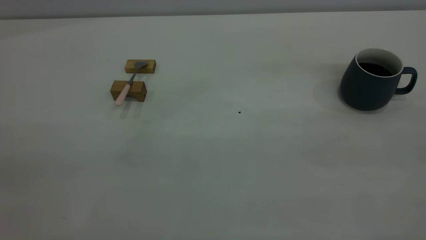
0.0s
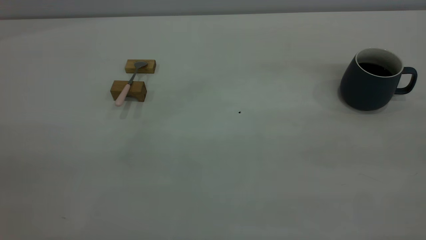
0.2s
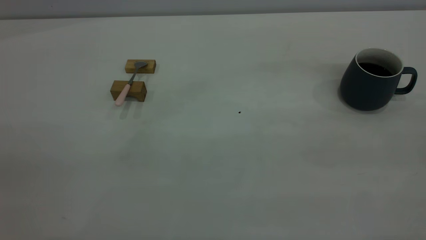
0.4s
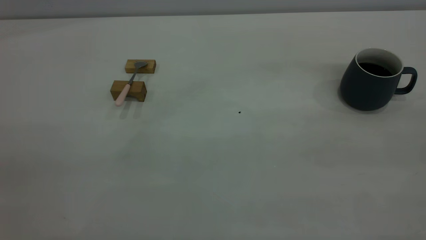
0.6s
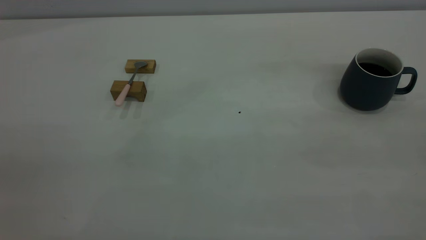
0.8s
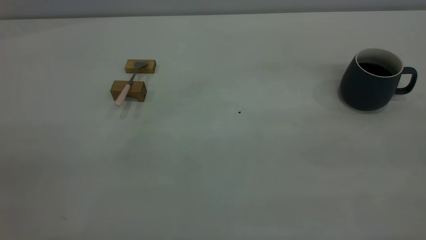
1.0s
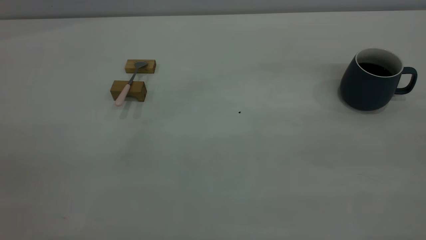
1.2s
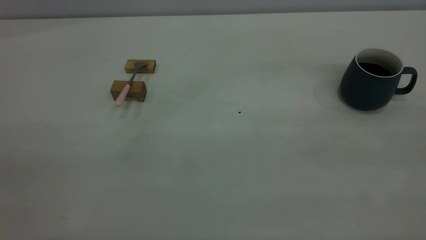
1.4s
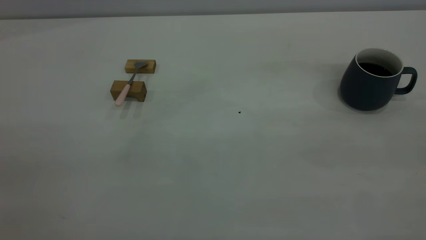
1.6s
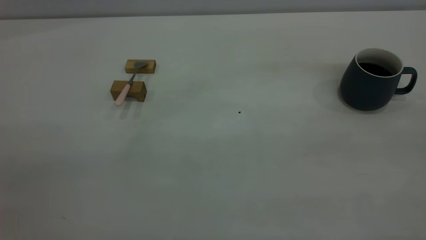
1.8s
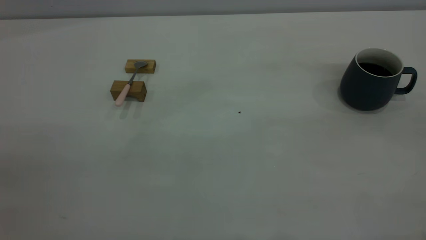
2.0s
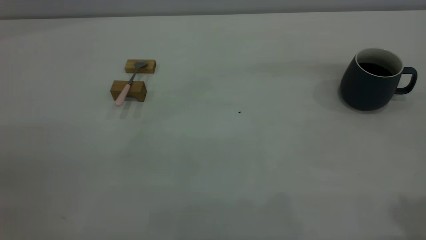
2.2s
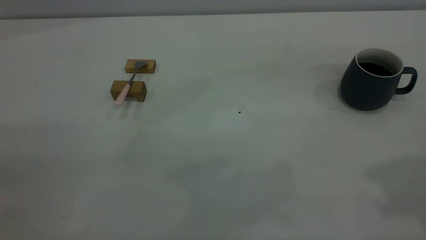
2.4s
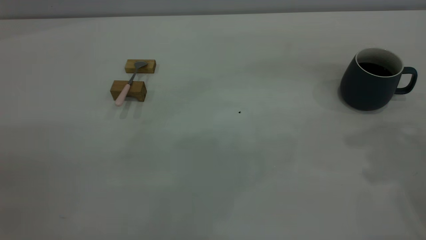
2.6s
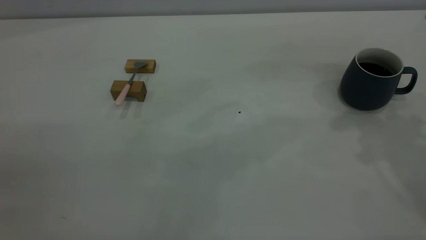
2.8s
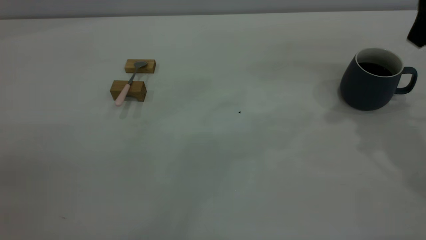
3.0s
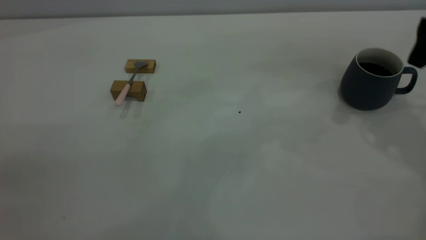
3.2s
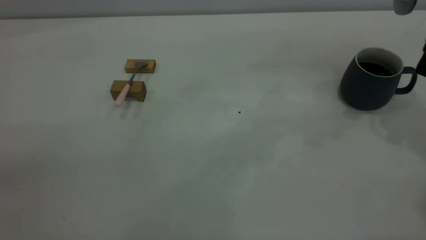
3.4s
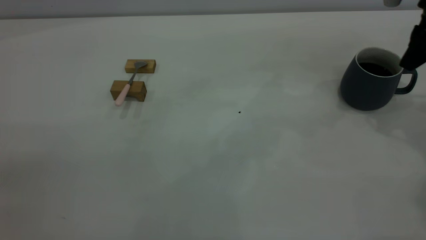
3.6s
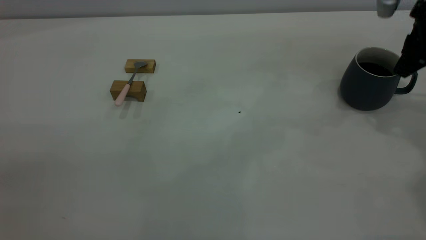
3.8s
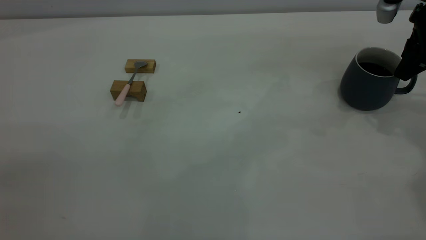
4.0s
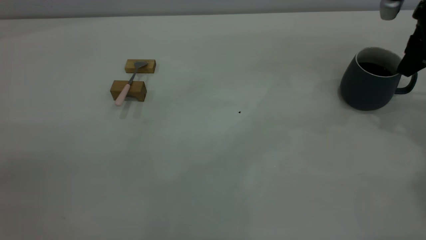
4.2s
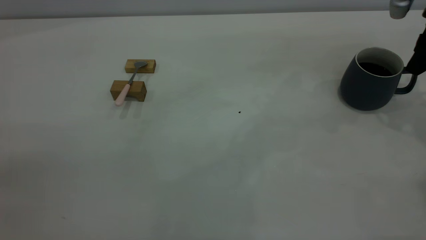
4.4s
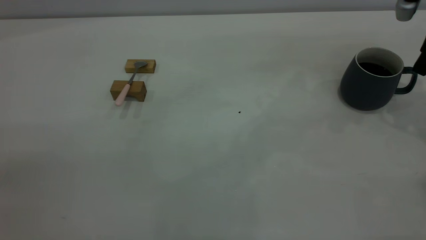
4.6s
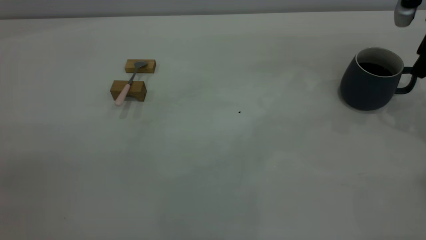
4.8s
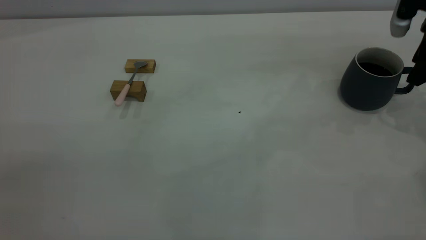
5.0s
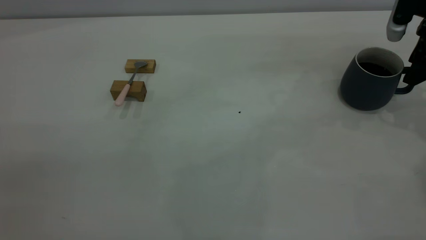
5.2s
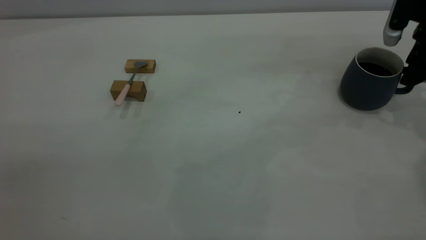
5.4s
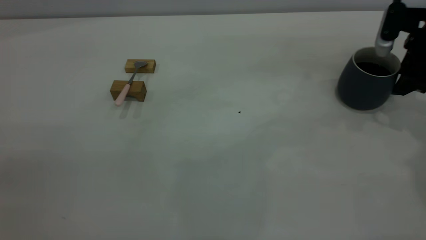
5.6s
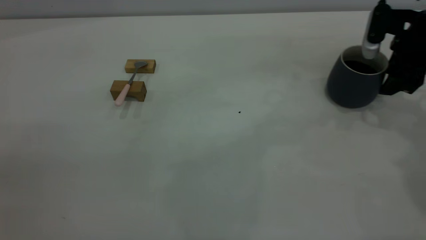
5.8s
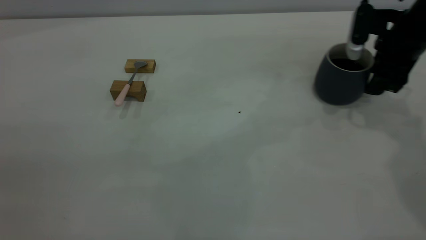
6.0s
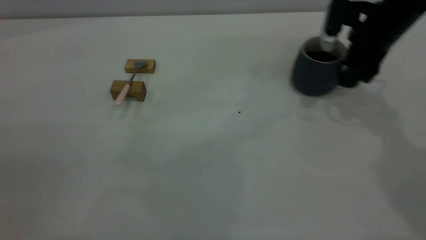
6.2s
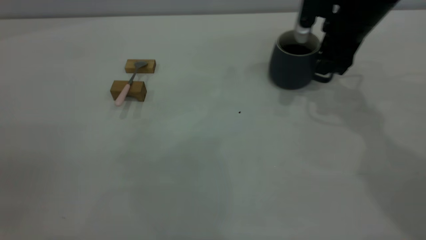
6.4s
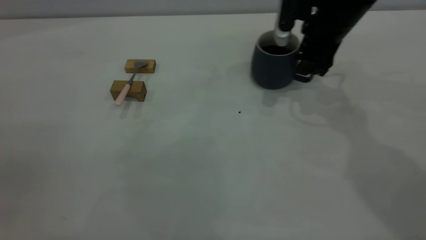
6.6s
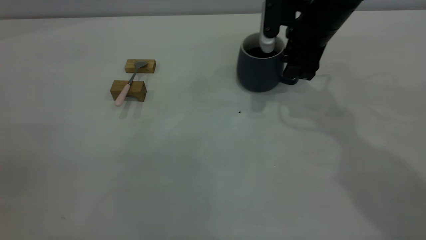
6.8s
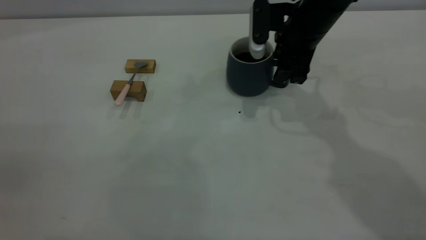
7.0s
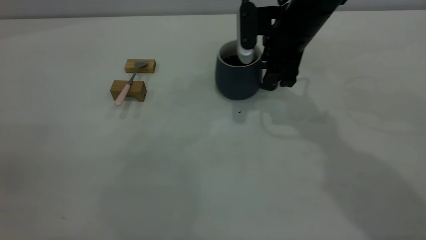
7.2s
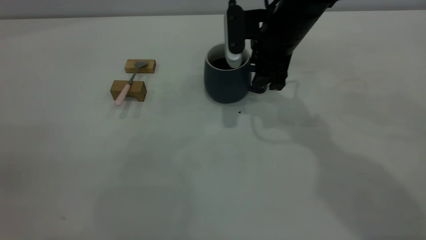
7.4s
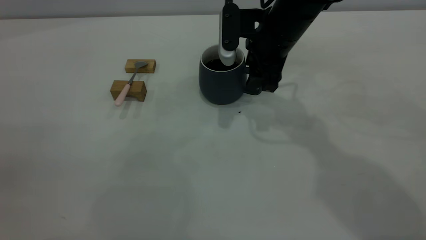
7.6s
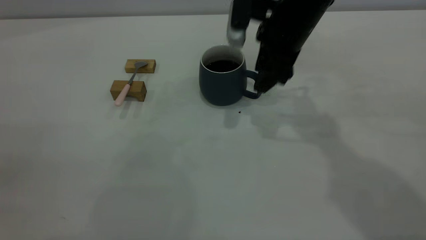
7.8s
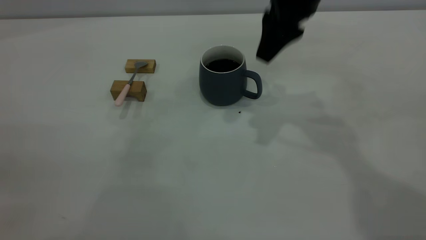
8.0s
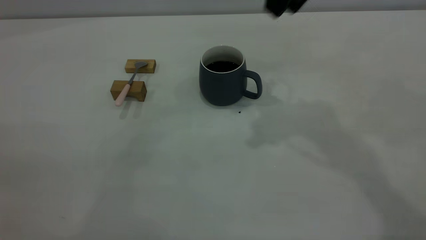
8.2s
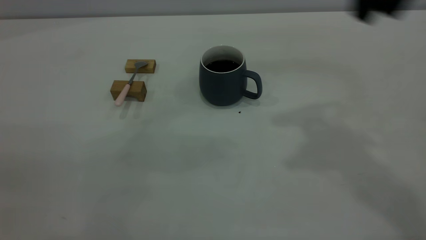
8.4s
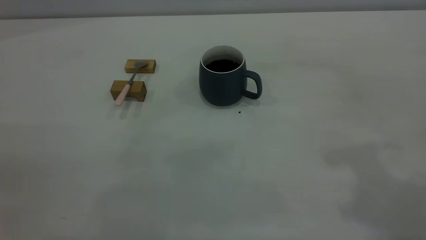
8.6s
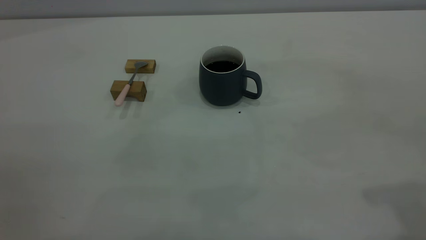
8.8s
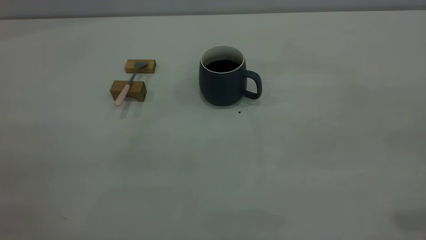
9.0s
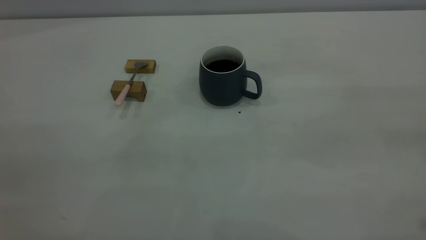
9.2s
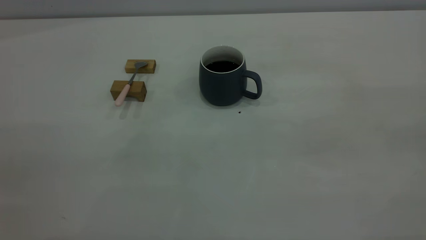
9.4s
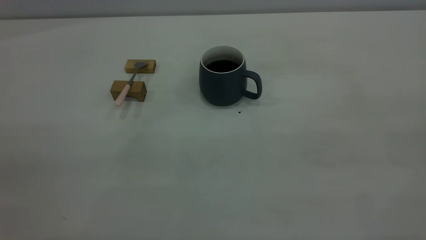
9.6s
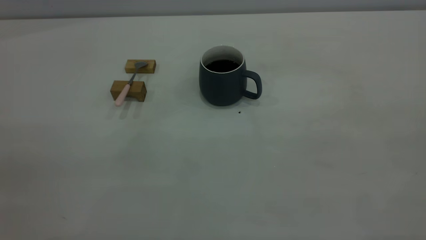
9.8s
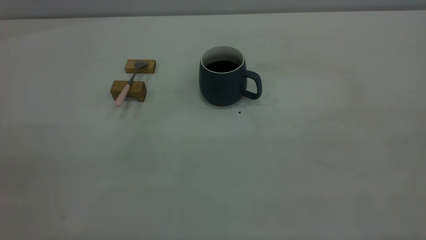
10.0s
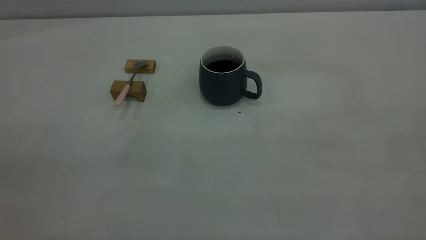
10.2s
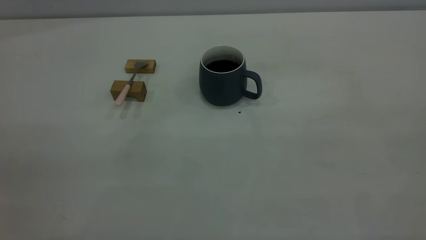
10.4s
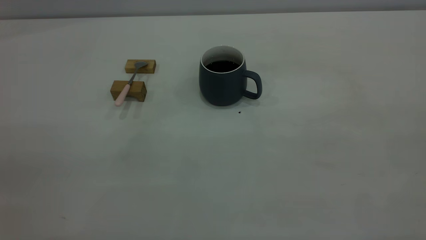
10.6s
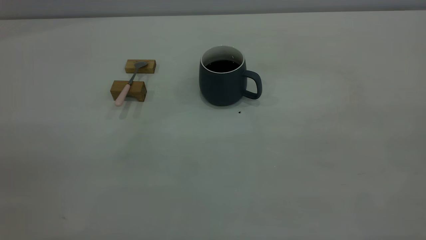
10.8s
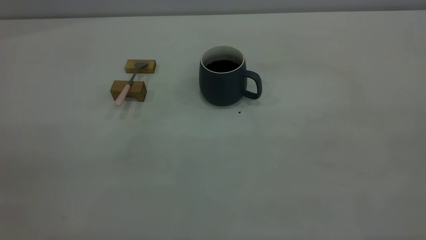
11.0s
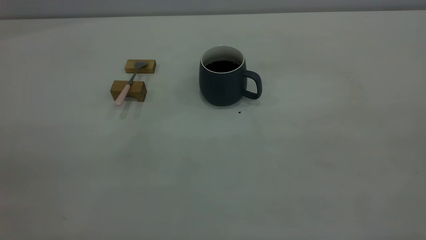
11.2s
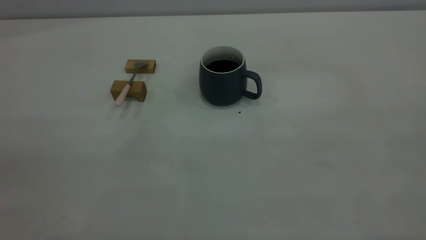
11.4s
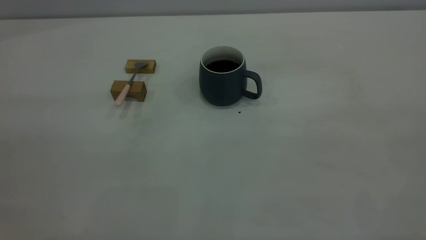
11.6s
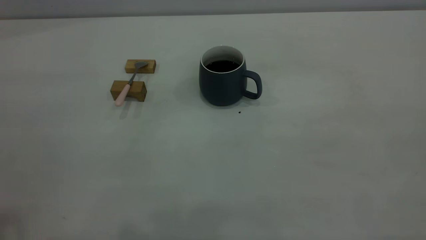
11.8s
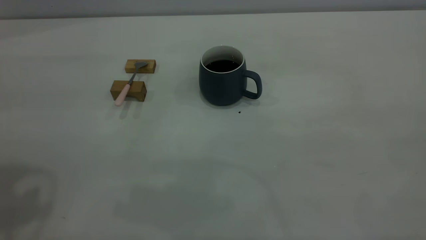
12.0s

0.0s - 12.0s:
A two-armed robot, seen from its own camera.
Step, 0.0s - 7.8s: Move the cup with coffee to the center of view.
0.0s - 1.6s: Both grippers stay put.
3.0s - 4.4s: The right gripper moves downward, to the right and forward, about 10 cm.
4.4s - 6.0s: The right gripper heads to the left and downward, covering approximately 10 cm.
6.0s - 7.6s: The right gripper shifts some 20 cm to the left.
7.6s - 9.0s: The right gripper heads backward, upward and to the right, covering approximately 40 cm, and closes its fingers.

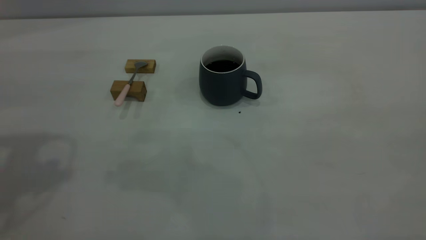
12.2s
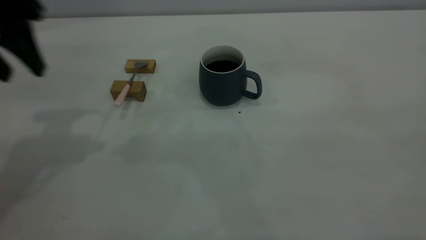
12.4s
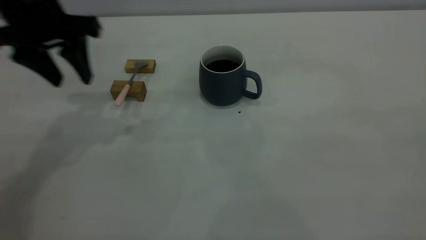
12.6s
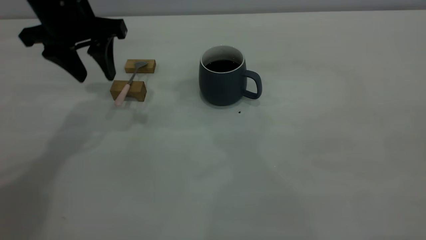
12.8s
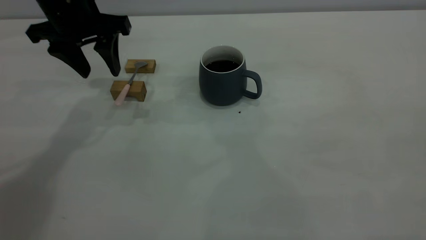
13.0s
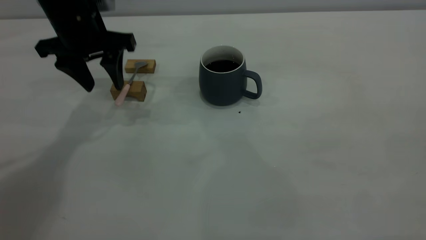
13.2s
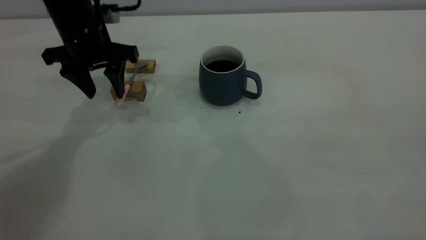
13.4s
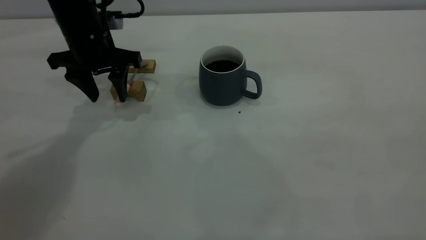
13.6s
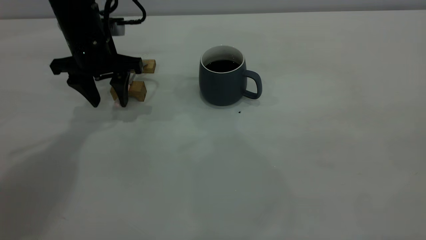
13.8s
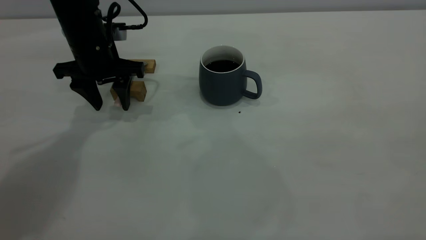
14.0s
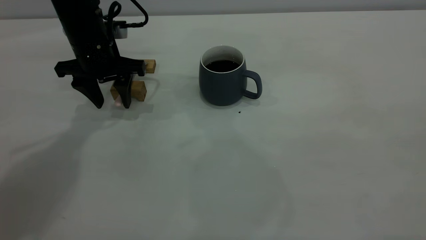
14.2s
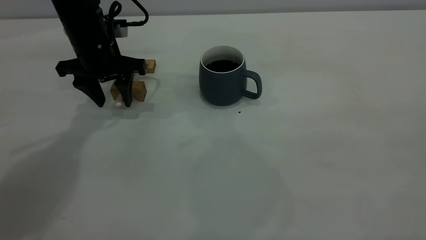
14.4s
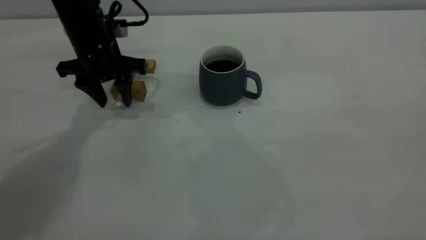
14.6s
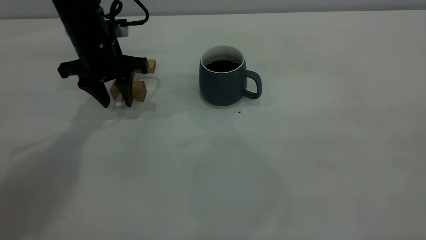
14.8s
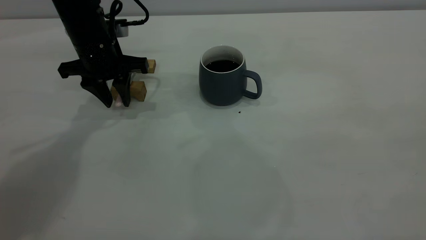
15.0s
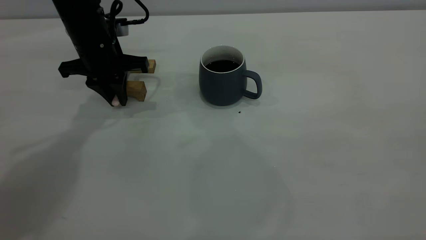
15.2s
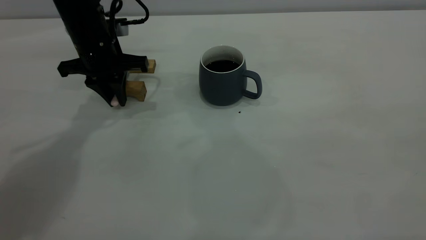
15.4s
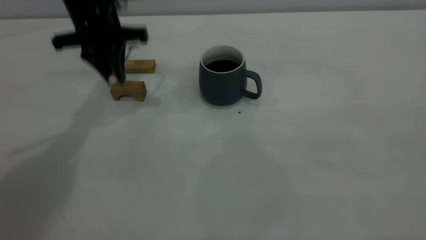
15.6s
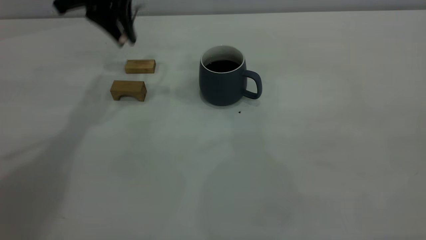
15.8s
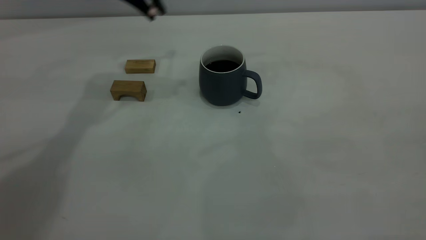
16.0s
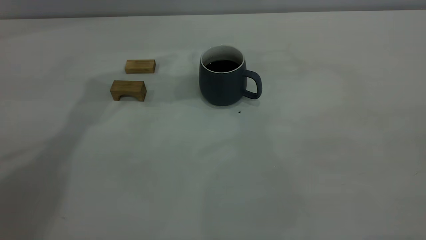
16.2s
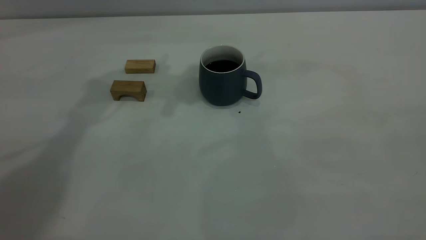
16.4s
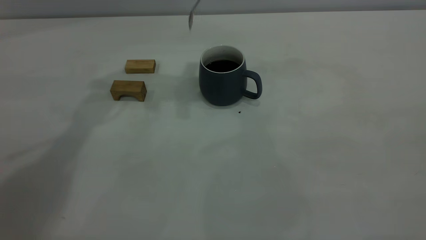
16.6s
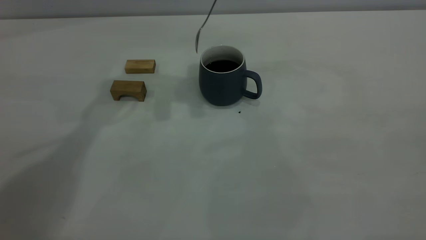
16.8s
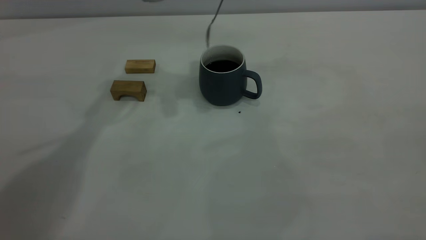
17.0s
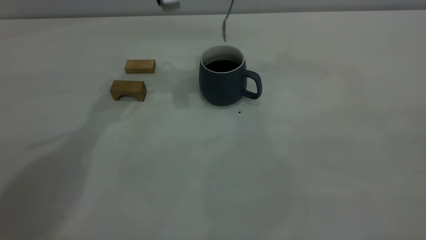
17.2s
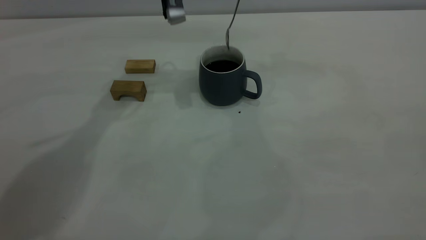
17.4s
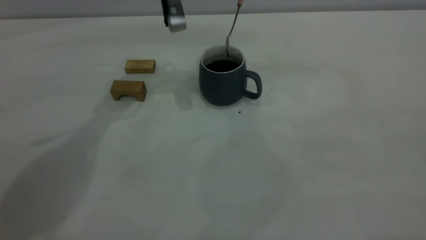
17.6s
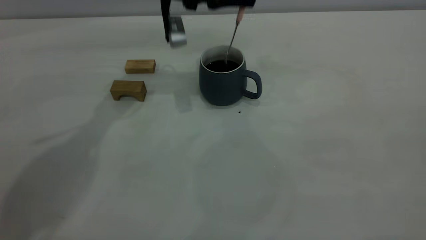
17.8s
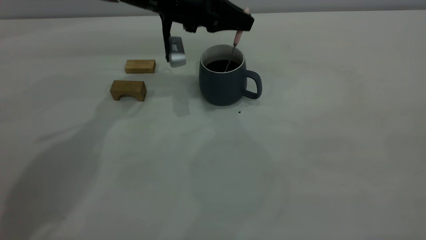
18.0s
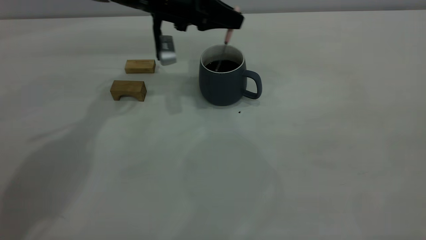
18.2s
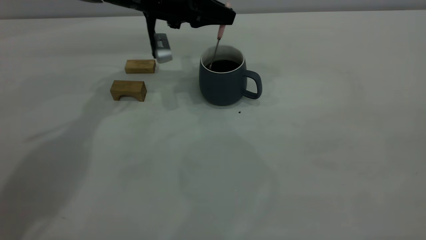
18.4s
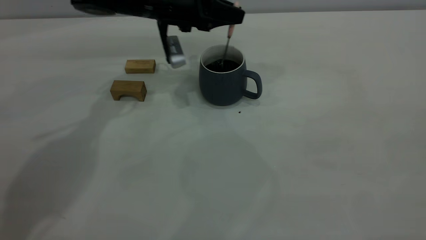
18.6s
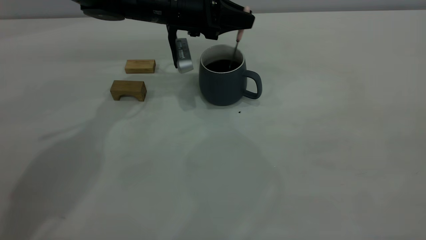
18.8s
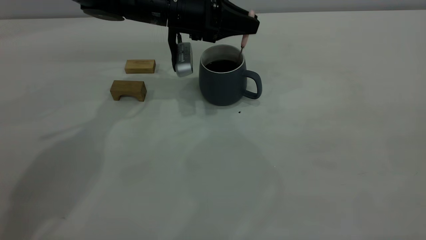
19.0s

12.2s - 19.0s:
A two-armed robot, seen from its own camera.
Step, 12.2s - 15.6s: Pick up the spoon.
12.2s - 13.6s: The left gripper travels downward, forward and to the right by some 25 cm.
13.6s - 15.0s: The left gripper closes up.
15.0s - 16.2s: The left gripper goes approximately 20 cm upward and to the right, and closes.
16.2s - 17.6s: The left gripper moves downward, some 10 cm.
17.6s - 19.0s: The left gripper heads downward, covering about 5 cm.
